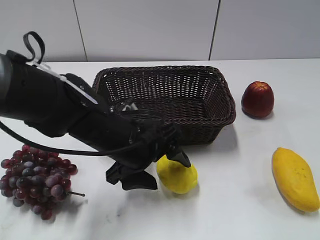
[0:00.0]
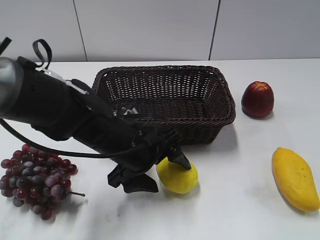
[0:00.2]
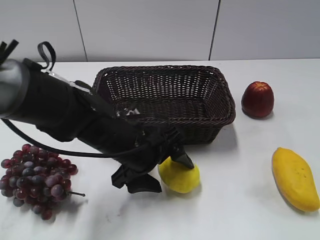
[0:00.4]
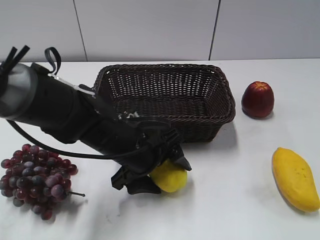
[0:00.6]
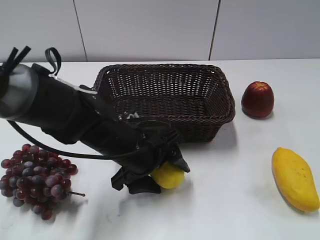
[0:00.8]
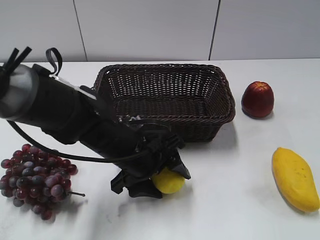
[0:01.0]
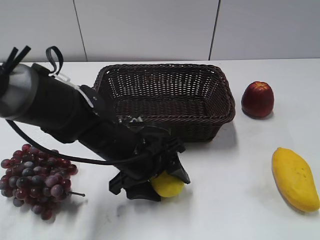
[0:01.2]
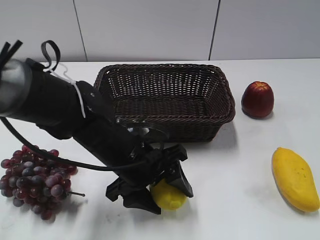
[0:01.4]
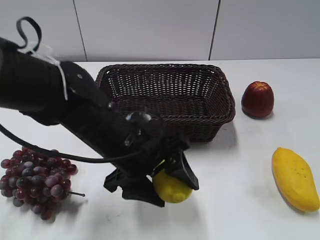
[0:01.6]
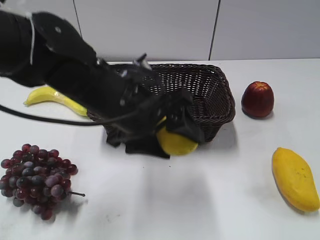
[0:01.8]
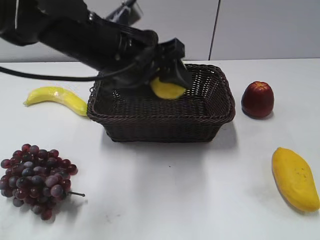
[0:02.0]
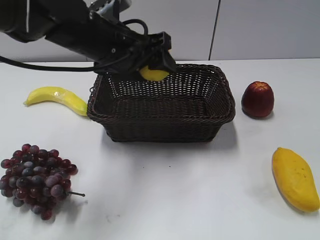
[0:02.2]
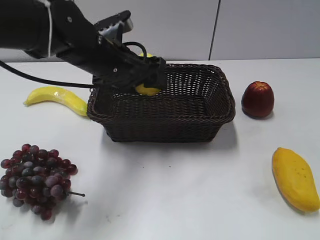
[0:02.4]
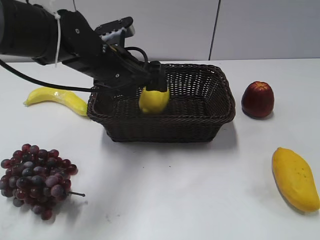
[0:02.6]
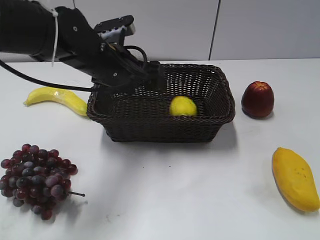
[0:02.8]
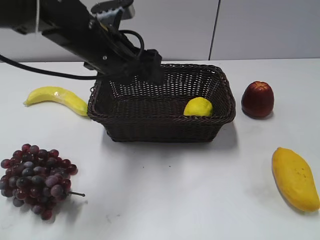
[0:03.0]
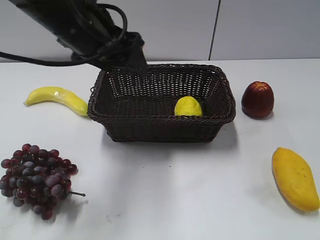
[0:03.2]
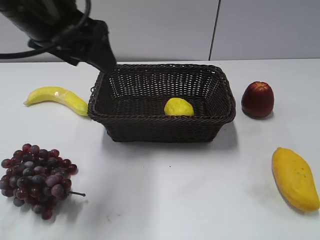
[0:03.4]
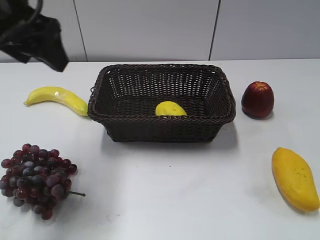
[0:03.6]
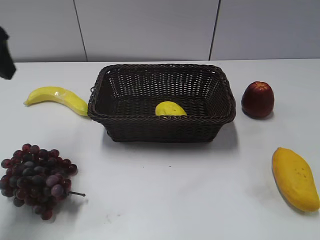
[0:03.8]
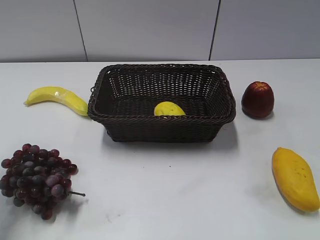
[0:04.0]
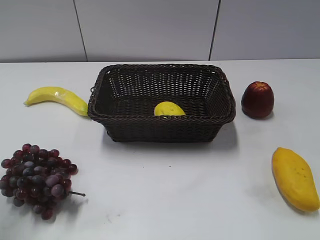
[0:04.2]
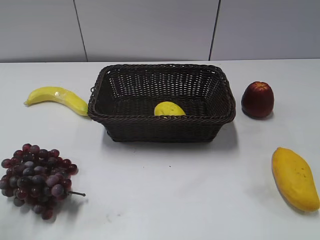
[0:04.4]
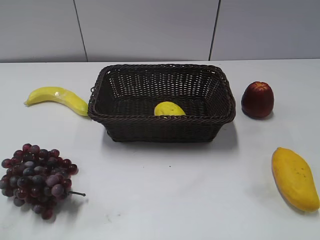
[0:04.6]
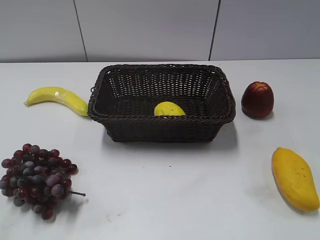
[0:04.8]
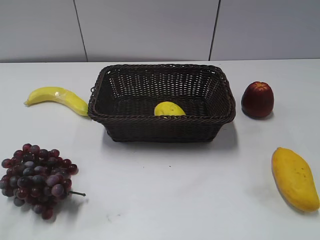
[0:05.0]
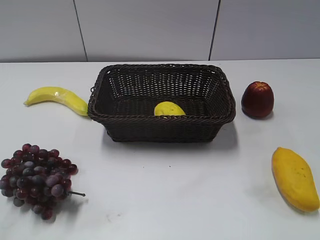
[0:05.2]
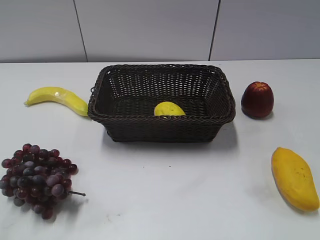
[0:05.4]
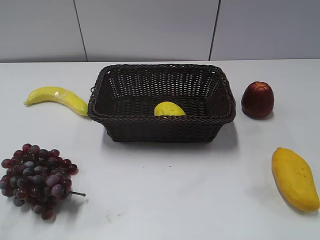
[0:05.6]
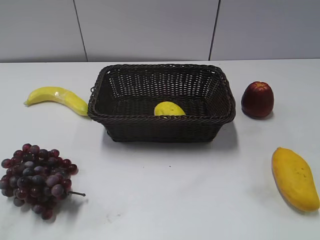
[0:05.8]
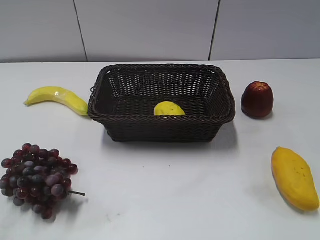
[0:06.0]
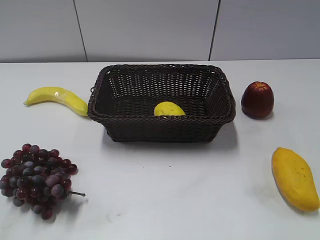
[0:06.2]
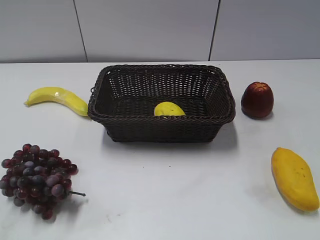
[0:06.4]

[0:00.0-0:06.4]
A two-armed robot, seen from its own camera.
Step, 0:01.8 to 0:02.6: Place the lemon in the basket with left gripper.
0:00.0 to 0:01.6: The left gripper closes up.
0:01.6 to 0:03.2: The left gripper moves up and down over about 15 cm, changing direction 2 times, and opens its fingers.
0:03.2 to 0:04.8: The left gripper shifts about 35 cm backward and to the left.
